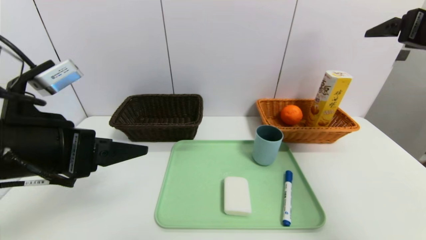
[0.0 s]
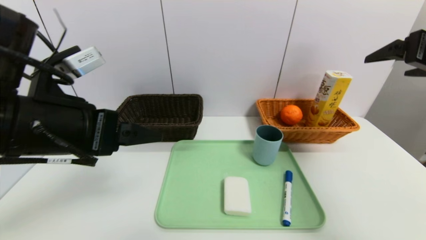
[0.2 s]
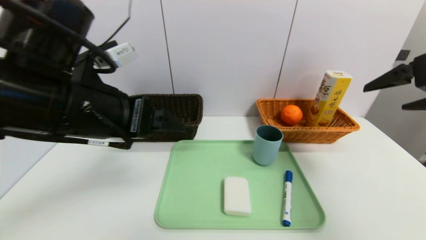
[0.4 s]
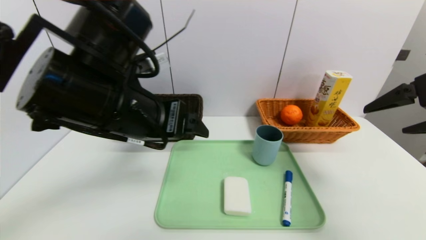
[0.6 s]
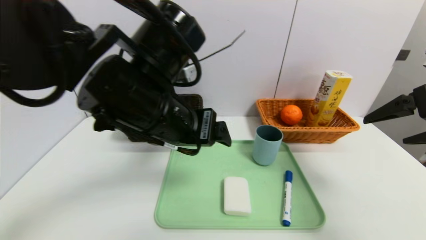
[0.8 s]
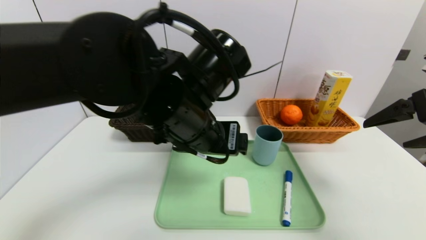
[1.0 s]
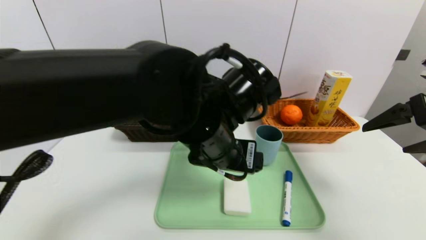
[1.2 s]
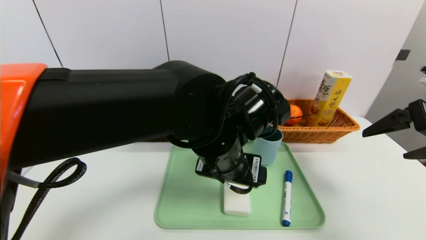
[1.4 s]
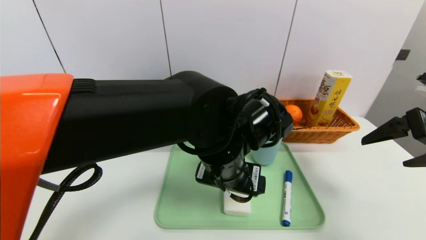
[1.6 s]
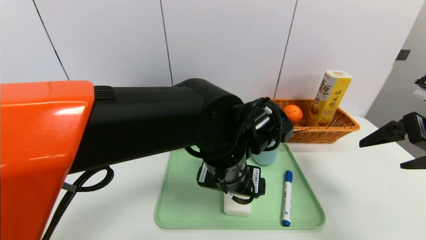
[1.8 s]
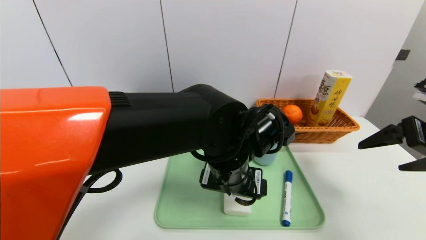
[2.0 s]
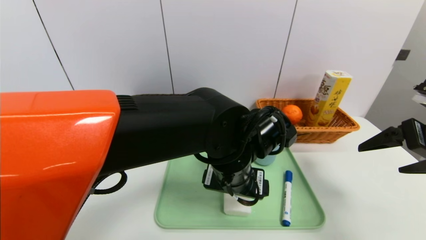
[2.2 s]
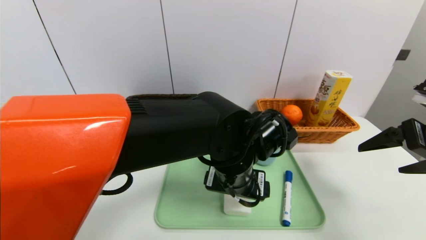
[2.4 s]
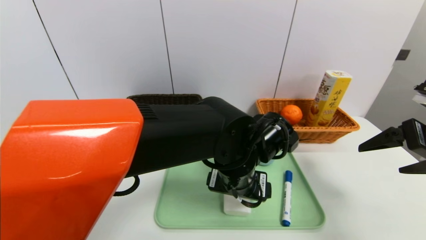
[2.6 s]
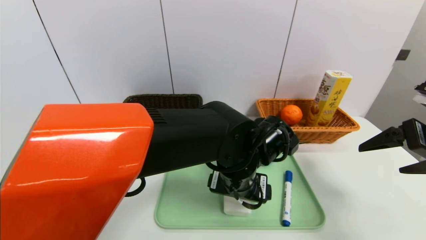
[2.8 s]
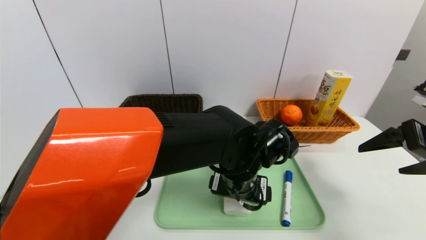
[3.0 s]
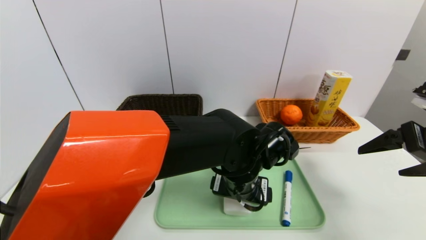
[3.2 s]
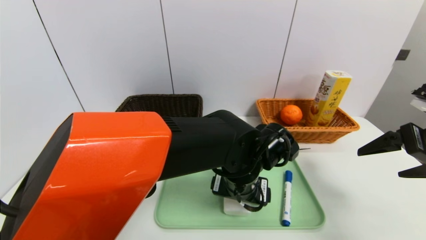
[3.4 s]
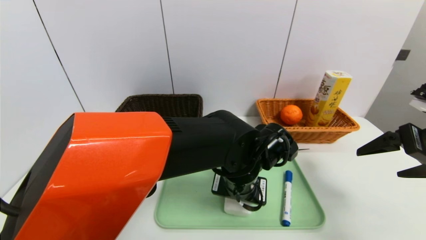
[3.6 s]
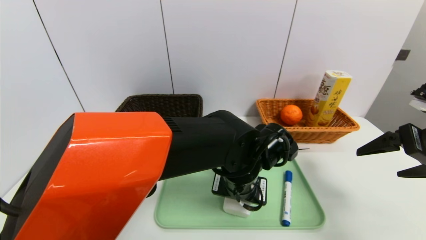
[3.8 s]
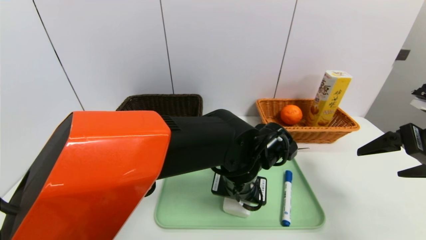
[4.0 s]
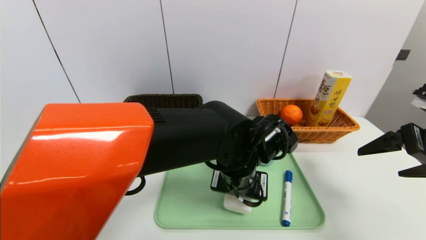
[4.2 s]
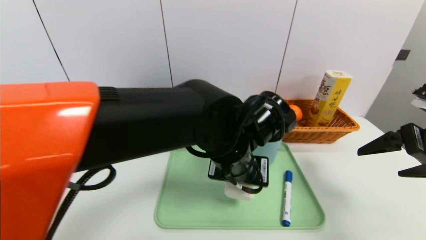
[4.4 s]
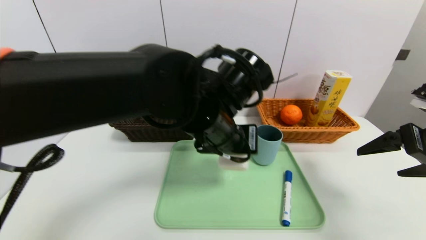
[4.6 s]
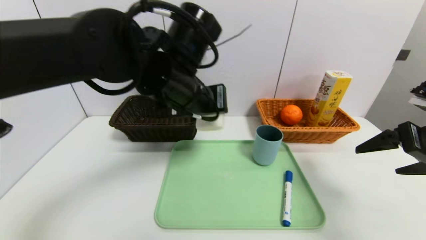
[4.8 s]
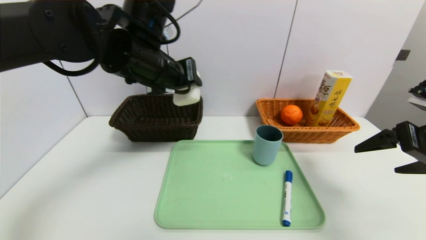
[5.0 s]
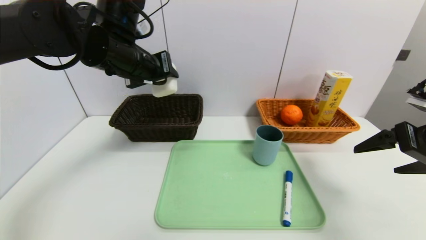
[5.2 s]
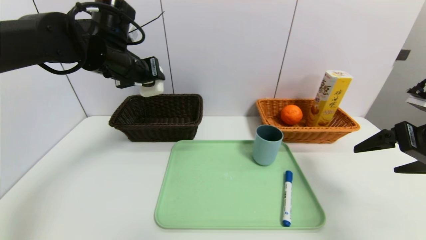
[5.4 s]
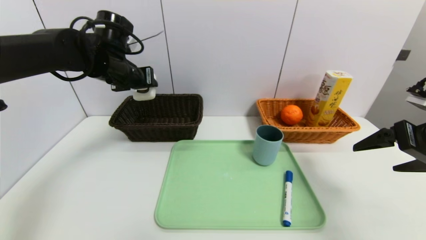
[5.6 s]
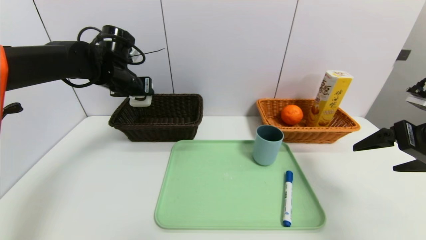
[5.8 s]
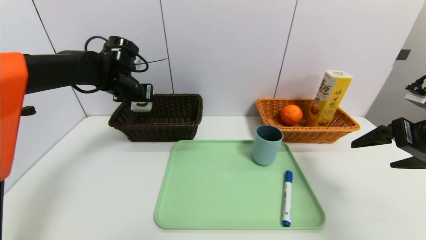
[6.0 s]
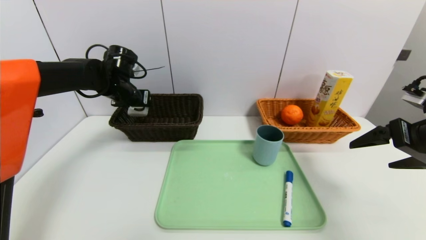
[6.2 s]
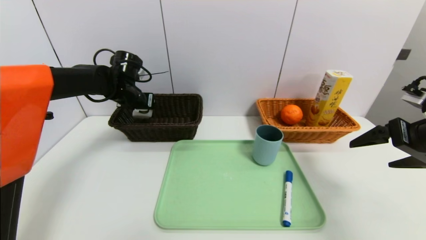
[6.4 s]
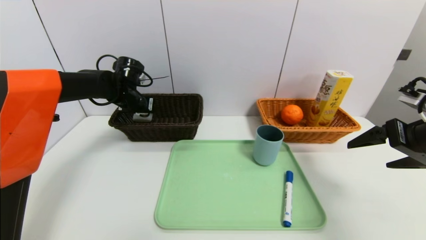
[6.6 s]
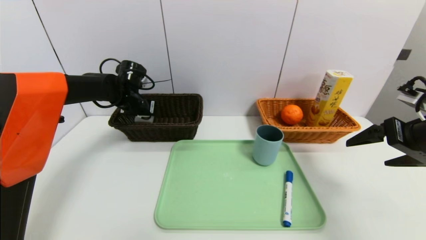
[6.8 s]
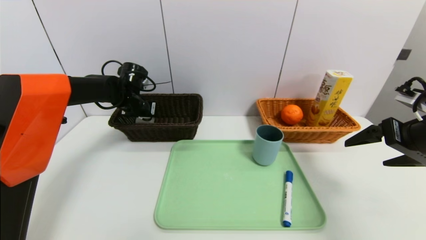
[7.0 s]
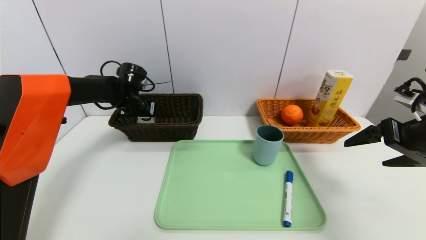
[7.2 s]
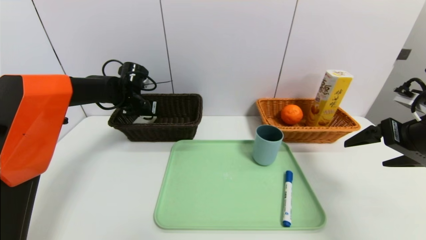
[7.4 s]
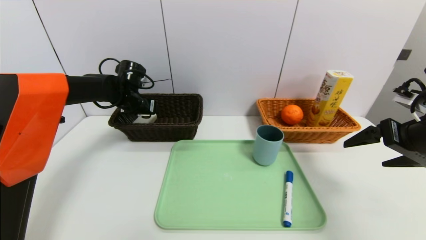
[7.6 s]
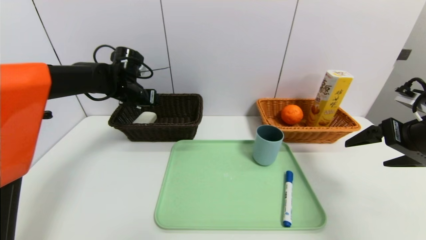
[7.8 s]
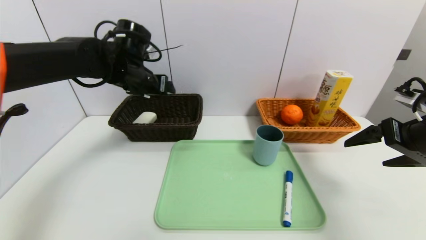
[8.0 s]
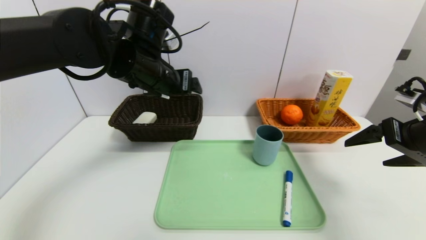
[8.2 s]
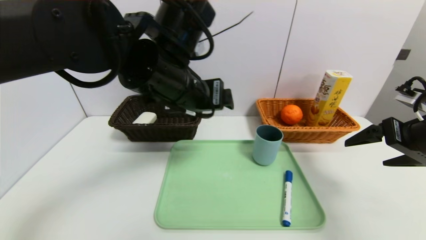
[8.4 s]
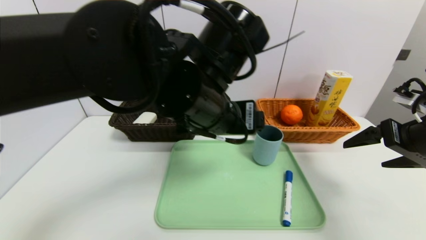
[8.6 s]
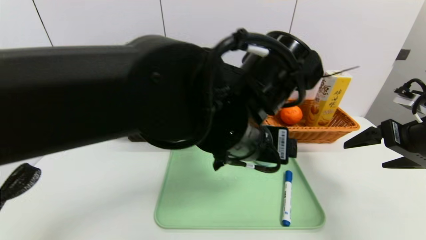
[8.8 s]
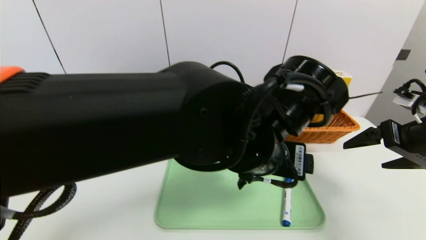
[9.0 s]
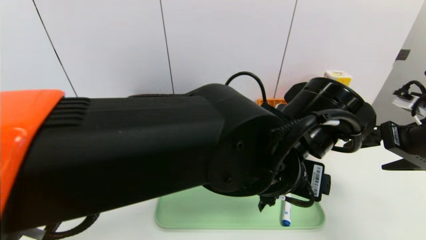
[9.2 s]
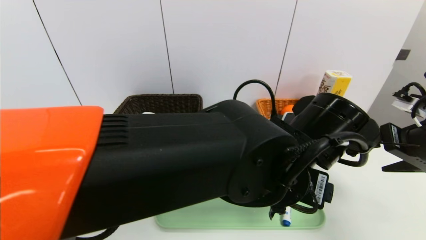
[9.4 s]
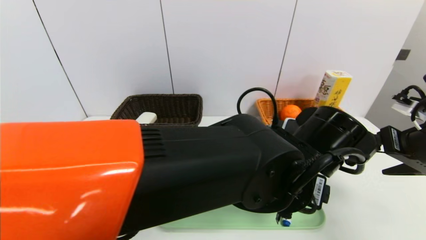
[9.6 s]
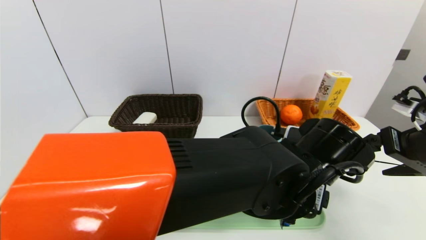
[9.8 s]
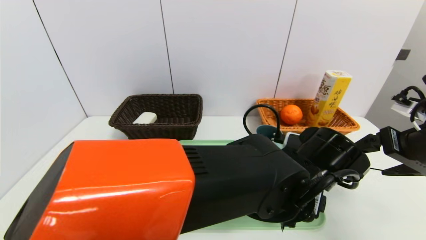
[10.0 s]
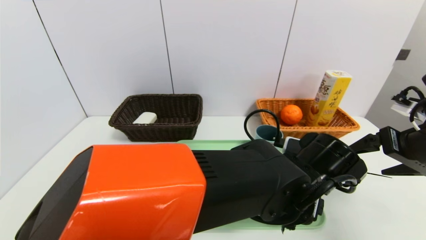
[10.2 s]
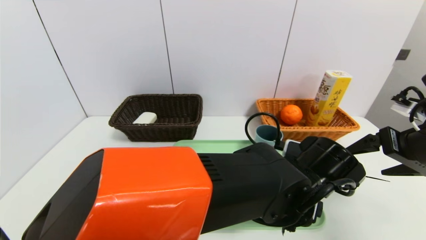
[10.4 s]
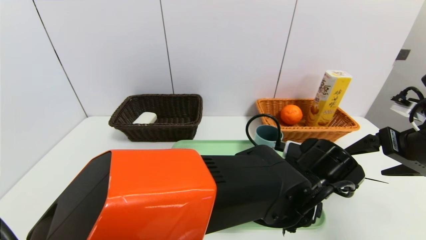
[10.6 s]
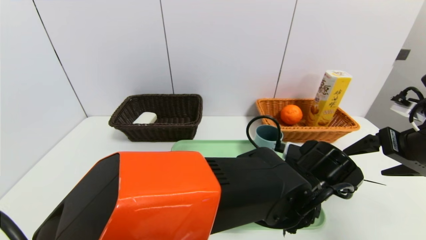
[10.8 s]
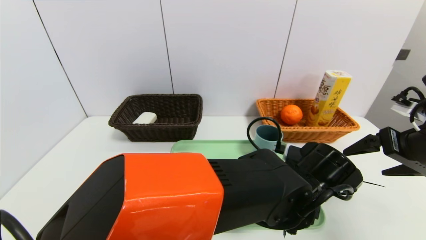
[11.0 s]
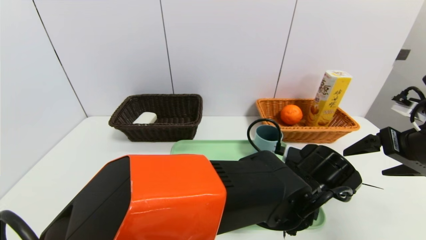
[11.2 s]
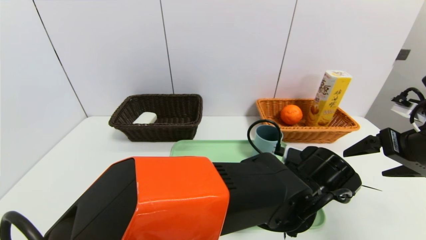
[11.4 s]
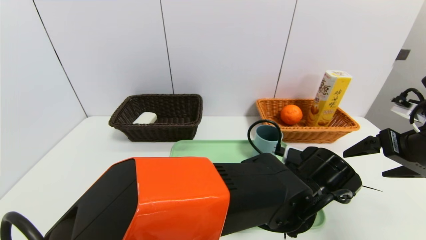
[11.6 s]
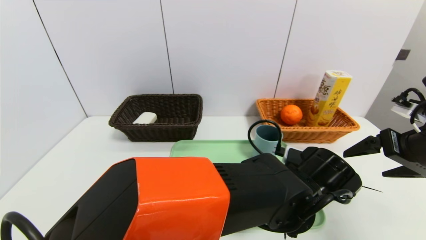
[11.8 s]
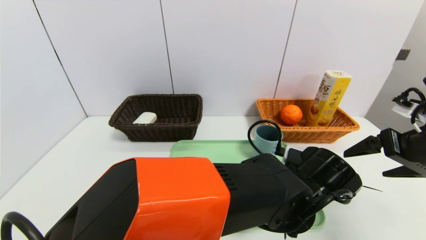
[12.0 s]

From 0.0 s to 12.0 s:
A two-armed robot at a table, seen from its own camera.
Task of the whole recording: place the food in the right basket with the right gripper, and place the non food items in the left basket with the left gripper.
Step, from 0.0 s to 7.8 s: Grasp the soap and put it in the right basket.
From 0.0 s to 1.6 s: The right gripper travels downward and backward by approximately 10 cm. Meanwhile the left gripper moves to the right, roughly 25 cm.
From 1.6 s to 3.0 s: The left gripper shifts about 5 cm downward.
From 3.0 s to 4.4 s: The left gripper travels upward by about 5 cm, and closes.
From 4.4 s to 6.0 s: The left gripper shifts roughly 30 cm to the left and forward.
From 6.0 s to 7.6 s: The left gripper travels downward by roughly 5 cm.
From 7.6 s to 9.0 s: The left gripper moves to the right and backward, about 40 cm.
From 9.0 s to 10.4 s: The left gripper heads downward and to the right, covering approximately 10 cm.
From 10.4 s to 12.0 s: The left gripper closes up.

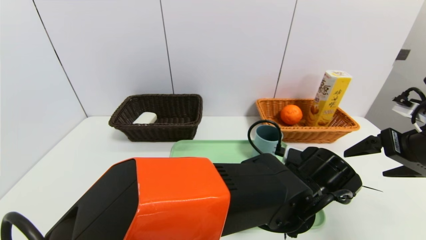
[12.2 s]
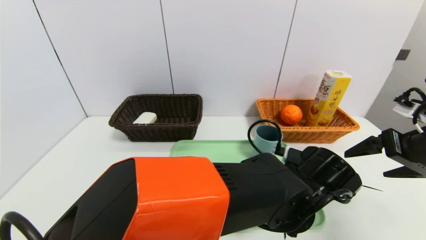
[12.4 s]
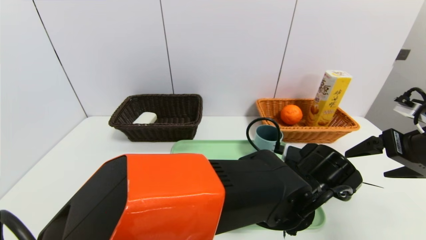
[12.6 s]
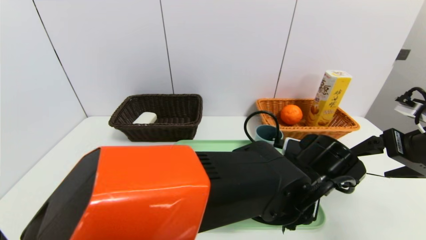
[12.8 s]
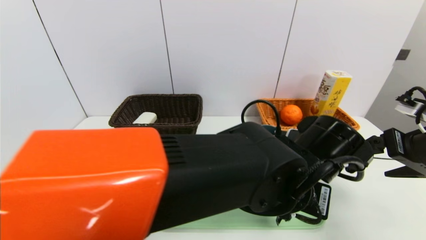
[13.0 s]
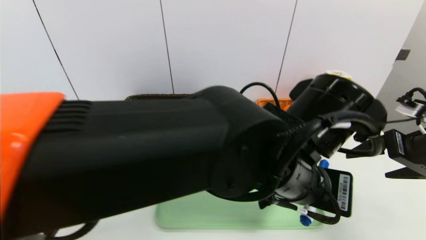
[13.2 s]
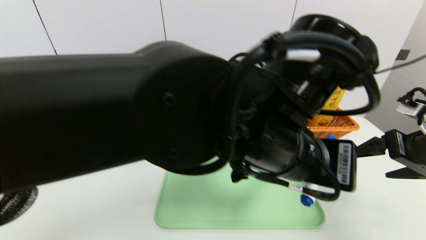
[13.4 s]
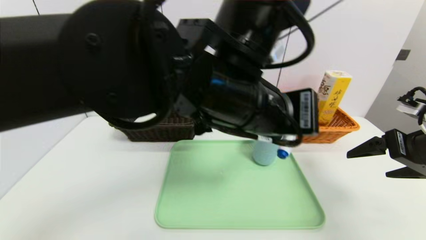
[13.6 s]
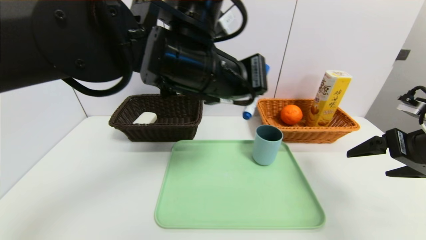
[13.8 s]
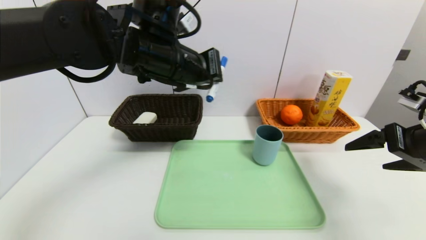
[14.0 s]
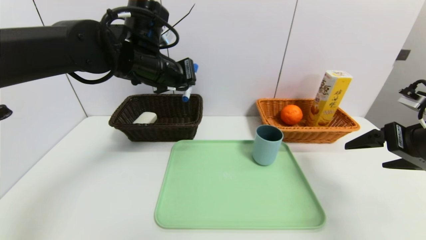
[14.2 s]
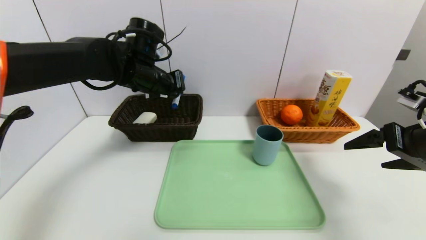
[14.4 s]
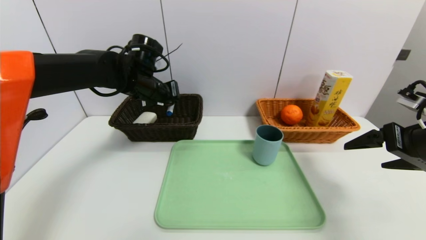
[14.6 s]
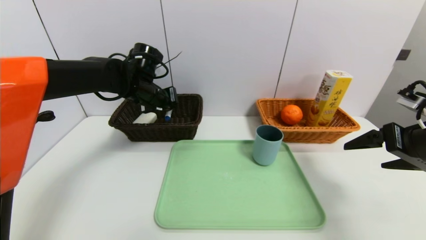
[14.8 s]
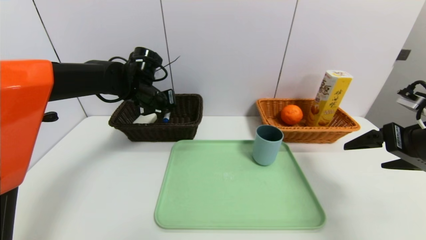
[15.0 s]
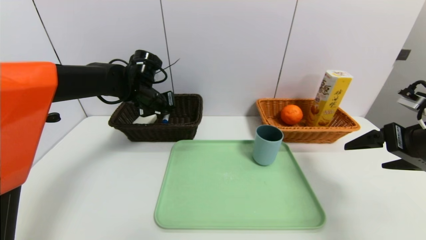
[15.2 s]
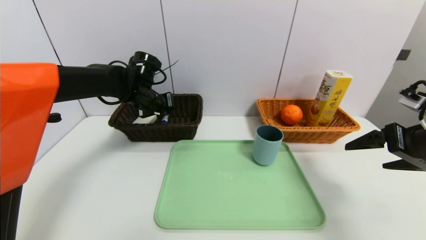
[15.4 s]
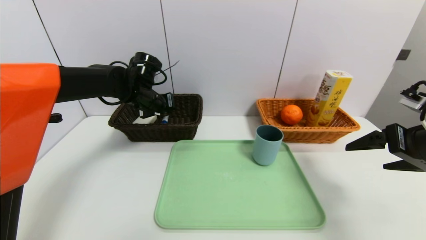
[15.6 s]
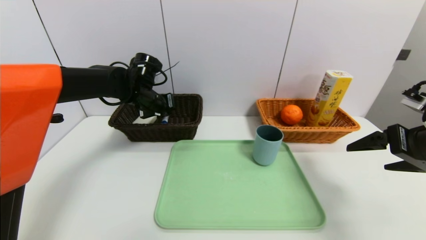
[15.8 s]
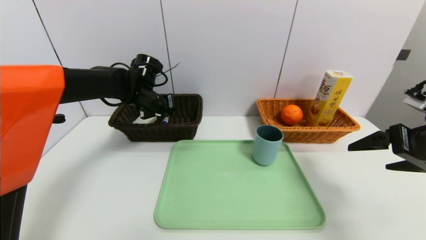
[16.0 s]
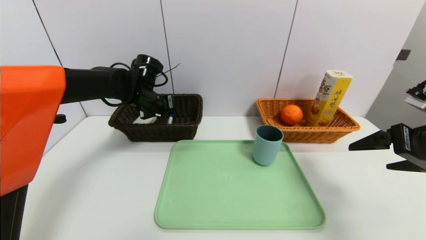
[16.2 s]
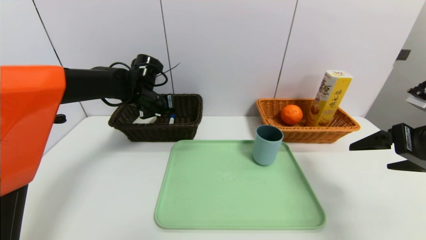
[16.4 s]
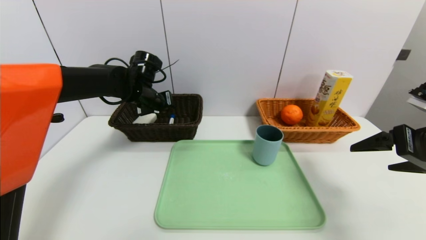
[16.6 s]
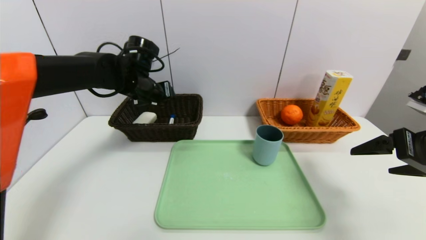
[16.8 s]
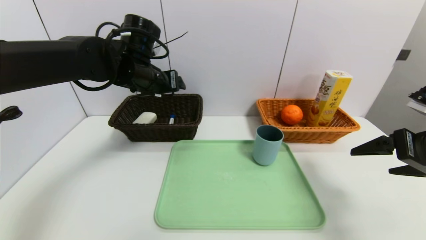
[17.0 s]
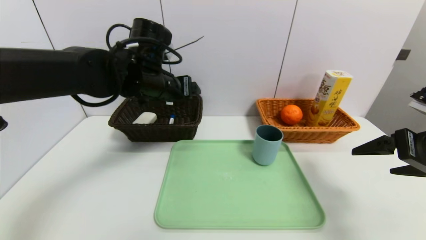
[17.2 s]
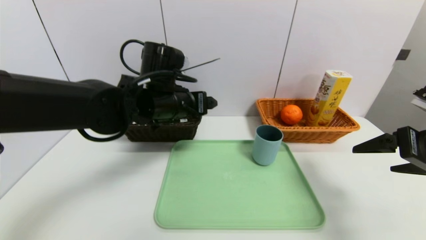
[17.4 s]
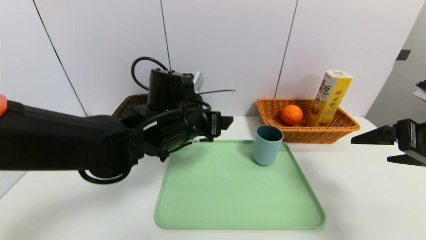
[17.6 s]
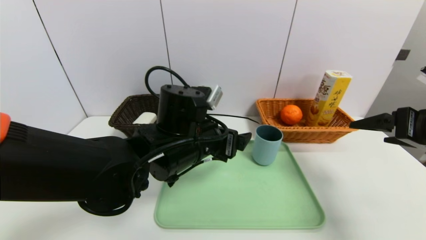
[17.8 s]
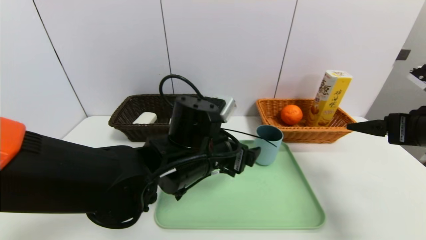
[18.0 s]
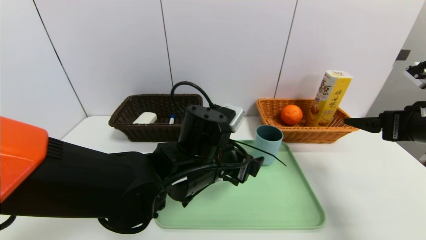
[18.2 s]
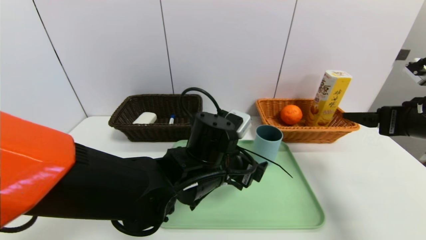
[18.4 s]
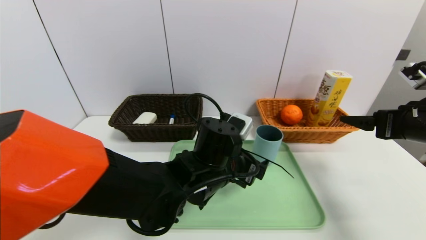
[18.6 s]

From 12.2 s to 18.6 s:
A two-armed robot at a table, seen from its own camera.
Task of the whole recording: place the food in the right basket with the right gripper, and place the non food items in the left basket with the left gripper.
Step, from 12.2 s to 16.8 s: Grasp the blue marker and put it in the left basket.
From 12.2 s to 13.8 s: The left gripper goes some 25 cm upward and to the left, and closes its fingers.
From 13.8 s to 15.4 s: The left gripper heads forward, to the left and downward, covering some 25 cm.
From 15.4 s to 17.0 s: The left gripper moves upward and backward, about 10 cm, and opens.
From 17.0 s to 18.6 s: The left gripper goes roughly 25 cm to the right, downward and backward.
